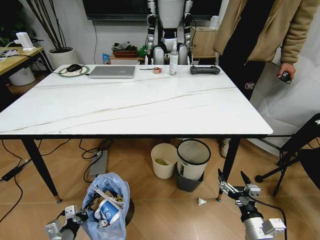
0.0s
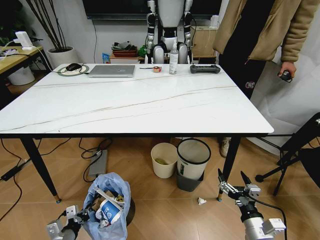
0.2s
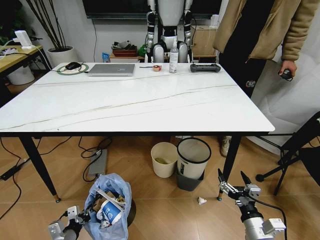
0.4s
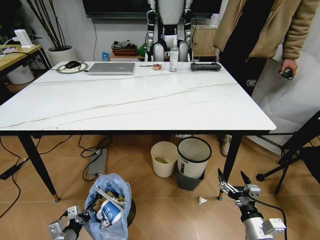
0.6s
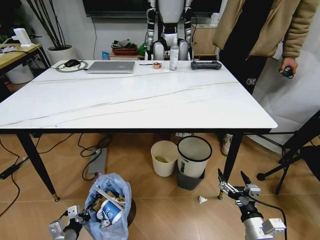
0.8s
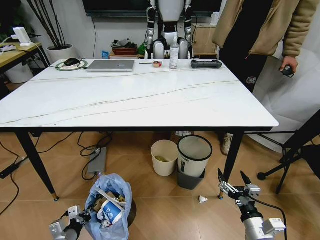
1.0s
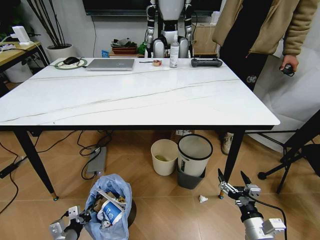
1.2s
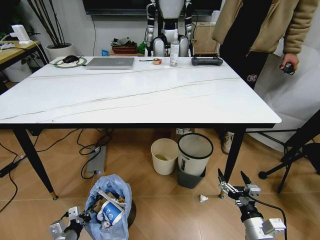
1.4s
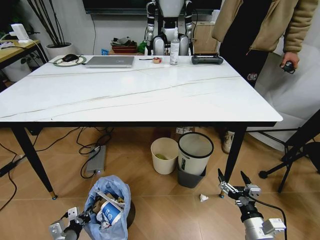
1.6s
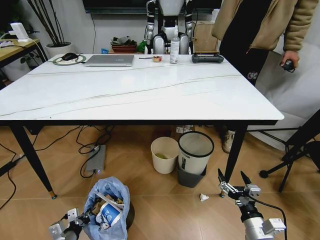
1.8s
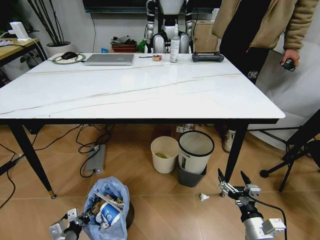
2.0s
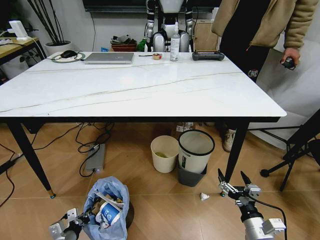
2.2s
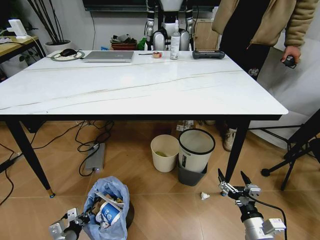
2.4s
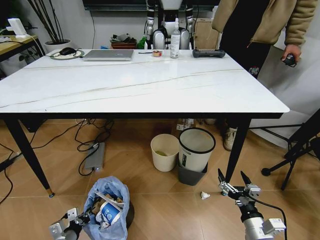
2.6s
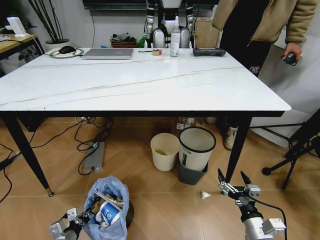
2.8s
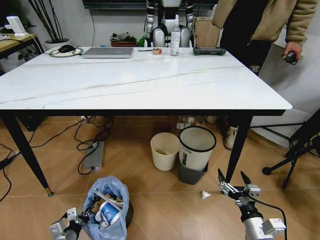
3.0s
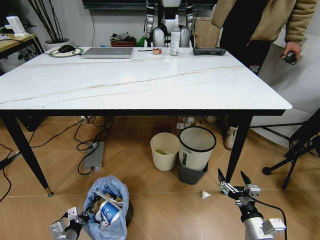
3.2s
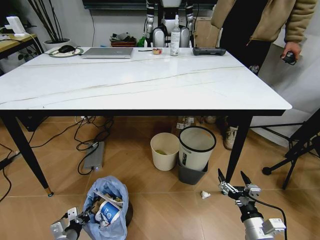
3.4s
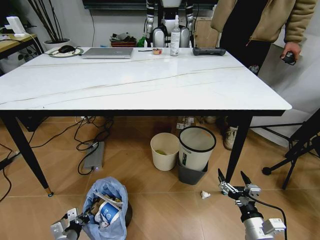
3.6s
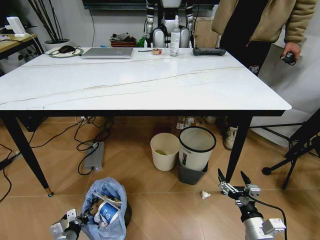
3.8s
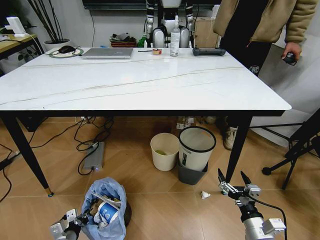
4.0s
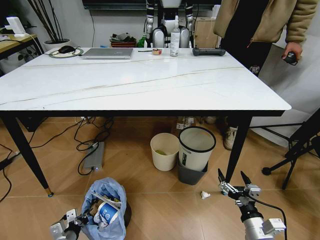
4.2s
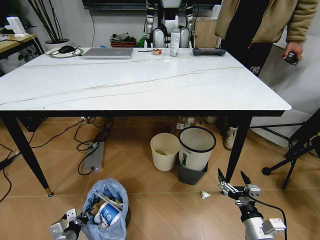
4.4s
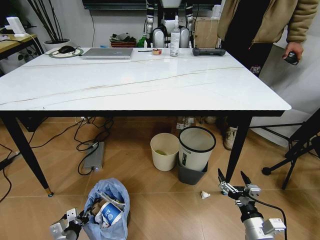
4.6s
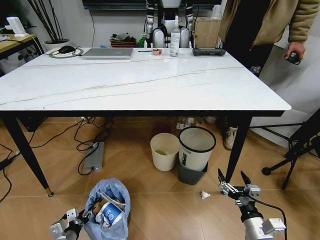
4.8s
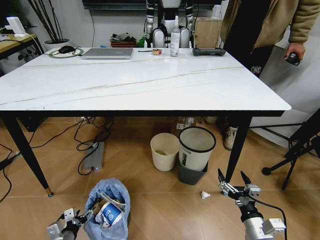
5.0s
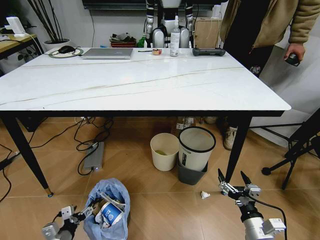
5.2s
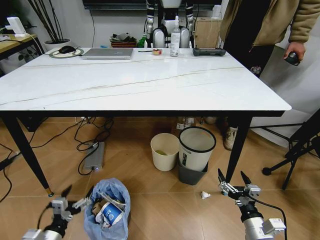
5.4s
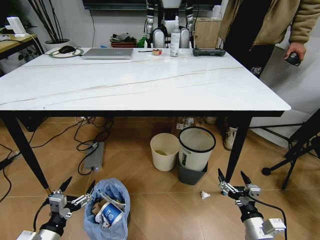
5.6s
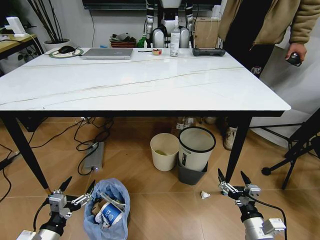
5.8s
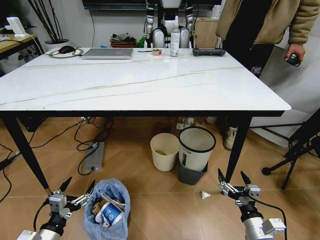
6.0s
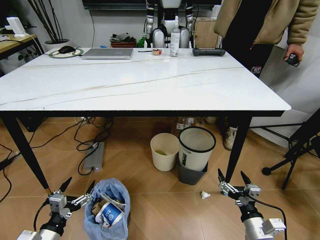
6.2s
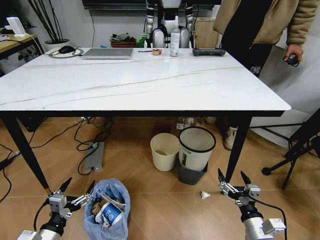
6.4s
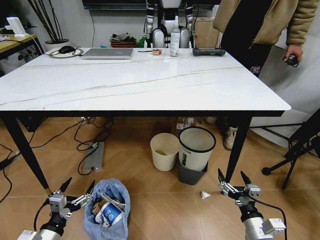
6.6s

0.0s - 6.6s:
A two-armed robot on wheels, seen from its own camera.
Task of the whole recording: Pick up the trash bin and place the trash from the table into it.
3.2s - 5.0s: The left gripper opens.
5.0s - 6.6s: The left gripper moves upward, roughly 15 cm.
